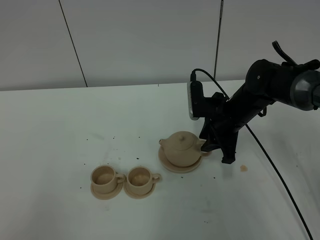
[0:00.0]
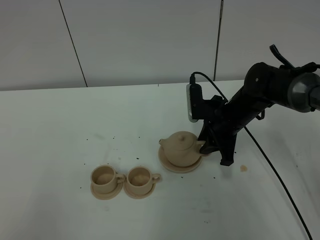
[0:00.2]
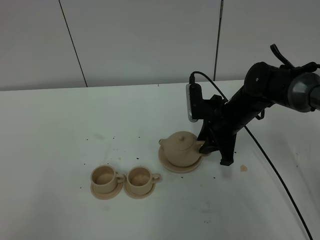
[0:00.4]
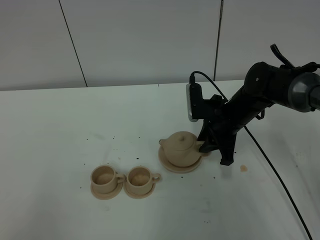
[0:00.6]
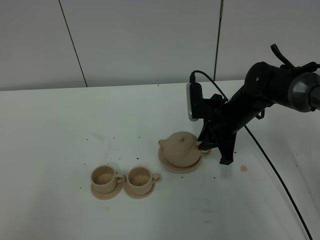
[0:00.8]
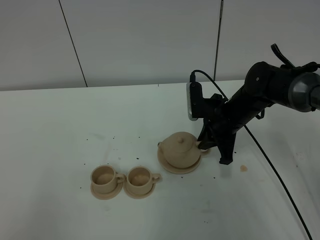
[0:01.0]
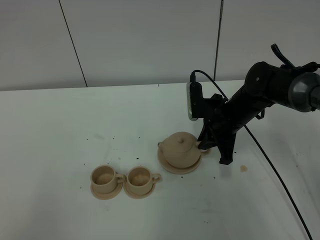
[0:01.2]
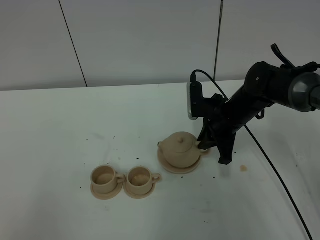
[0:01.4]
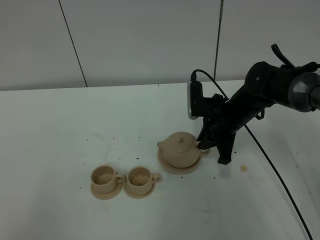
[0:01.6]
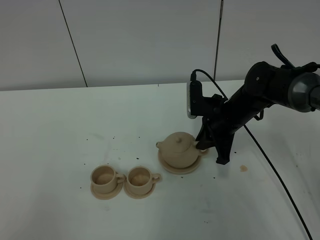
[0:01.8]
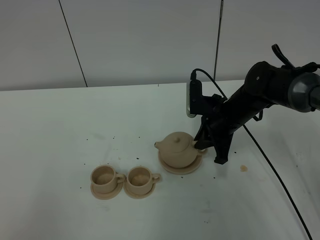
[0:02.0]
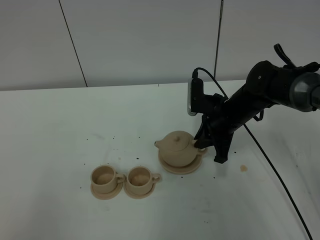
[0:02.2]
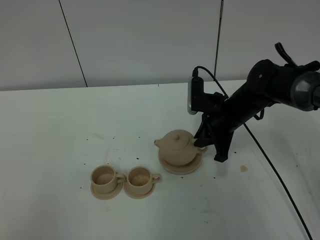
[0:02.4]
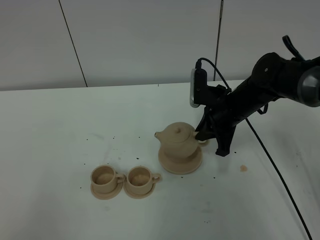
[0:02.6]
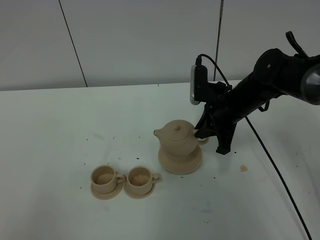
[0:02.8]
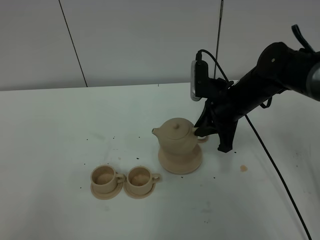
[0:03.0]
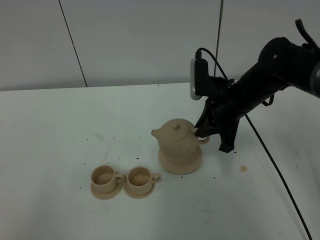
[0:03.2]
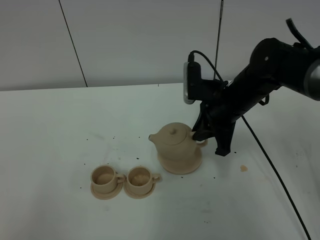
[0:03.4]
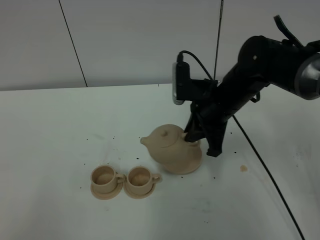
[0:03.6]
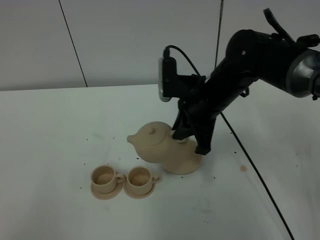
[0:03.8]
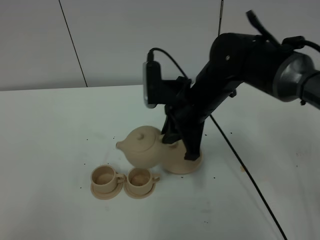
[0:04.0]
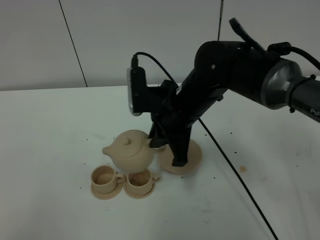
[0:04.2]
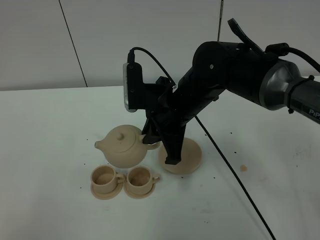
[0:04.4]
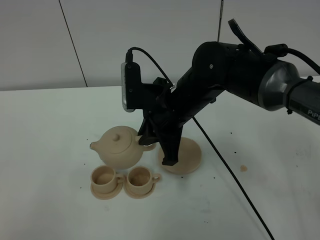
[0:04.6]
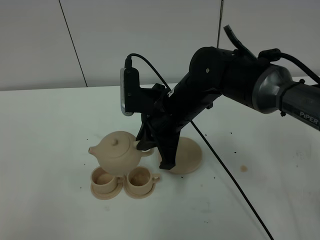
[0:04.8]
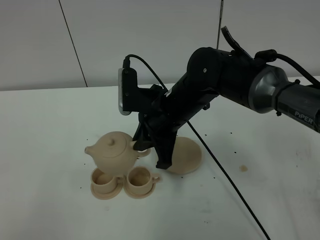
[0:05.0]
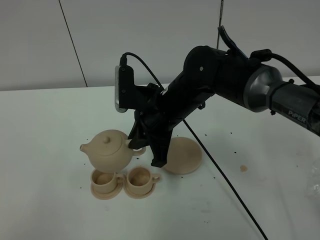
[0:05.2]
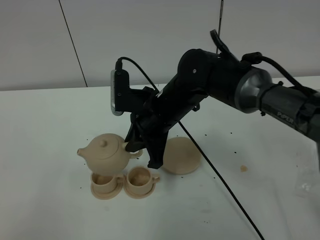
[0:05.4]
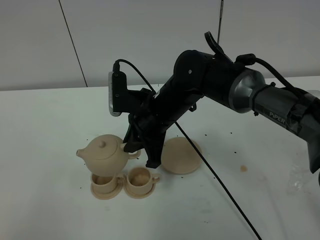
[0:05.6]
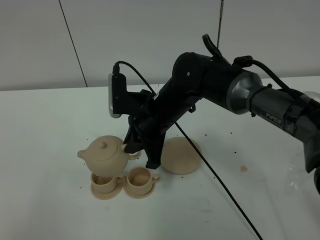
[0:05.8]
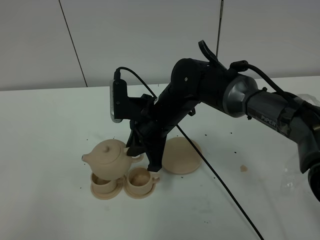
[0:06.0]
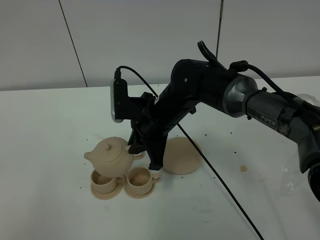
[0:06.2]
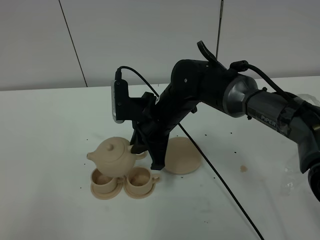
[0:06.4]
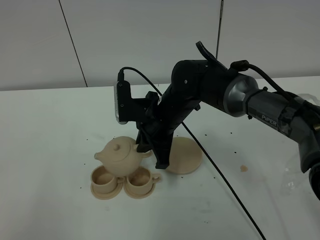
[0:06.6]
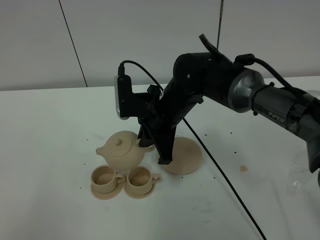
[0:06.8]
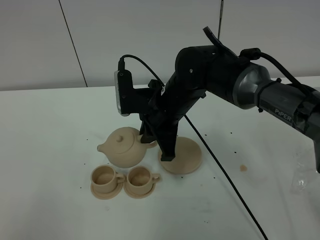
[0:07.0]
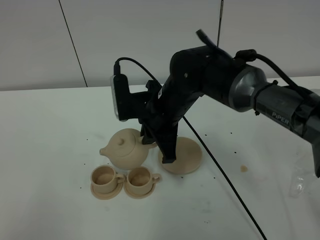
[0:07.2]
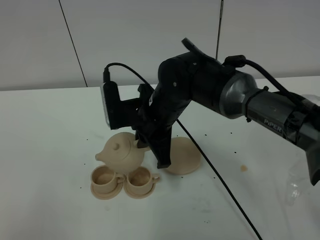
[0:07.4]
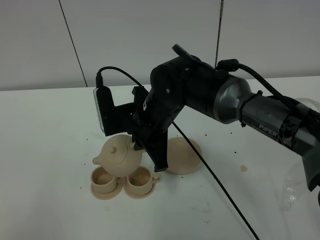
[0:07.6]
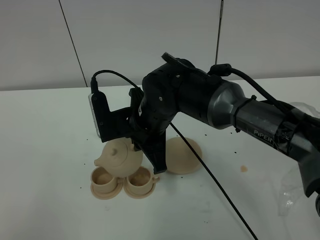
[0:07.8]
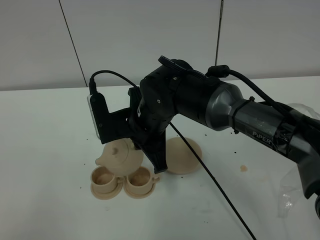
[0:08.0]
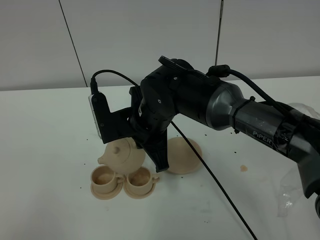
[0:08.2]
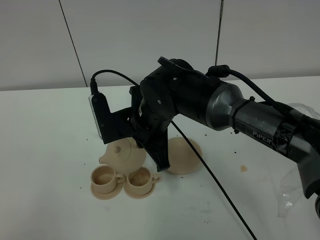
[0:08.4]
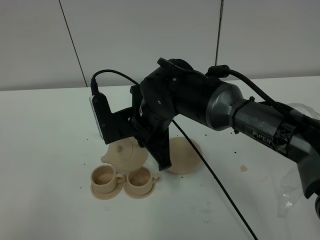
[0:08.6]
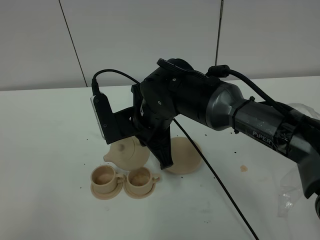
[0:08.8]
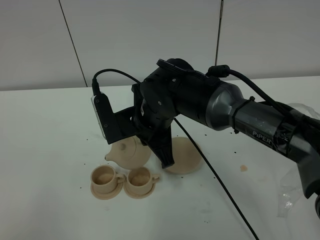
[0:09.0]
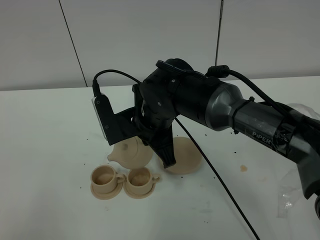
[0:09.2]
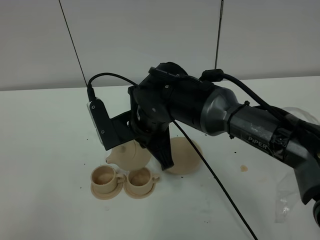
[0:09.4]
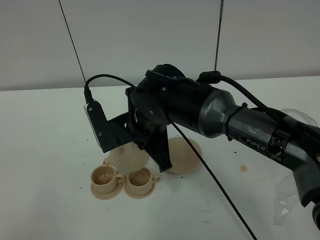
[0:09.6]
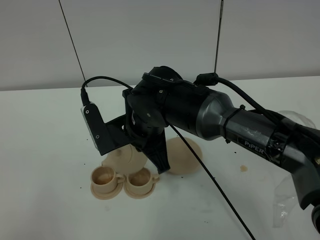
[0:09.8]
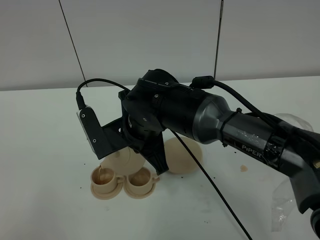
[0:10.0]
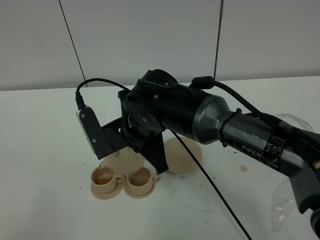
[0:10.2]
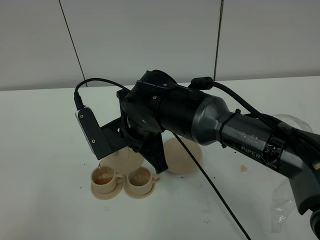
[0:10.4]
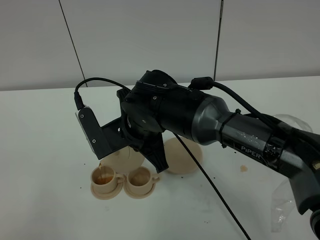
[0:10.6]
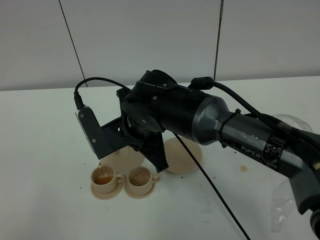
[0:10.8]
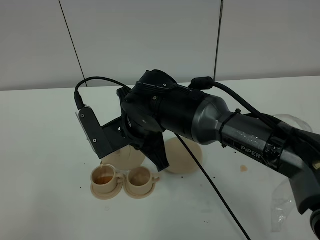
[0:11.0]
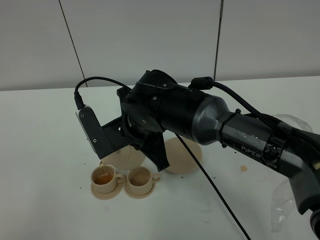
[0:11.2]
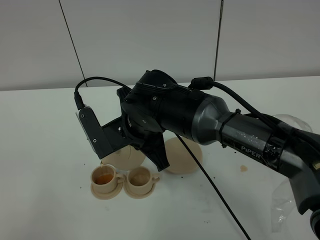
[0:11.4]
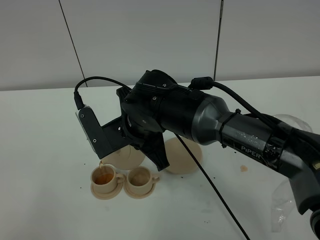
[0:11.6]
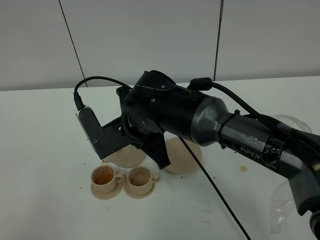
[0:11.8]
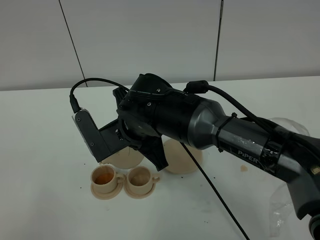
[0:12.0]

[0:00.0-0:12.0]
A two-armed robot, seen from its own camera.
Task of the whole recording: grasp the brown teapot and pour the tea into the two brown teacups one by one, put the brown teapot back in its original place.
Step, 0:00.0 to 0:02.4: Pick up the teapot with the right gripper.
0:00.0 to 0:01.6: The right gripper closes its fingers.
0:01.6 to 0:03.0: The right gripper moves upward, roughly 5 cm.
0:03.0 to 0:04.4: The right gripper travels to the left, backward and upward by some 15 cm.
0:04.4 to 0:06.0: The right gripper travels downward by roughly 5 cm.
0:07.6 to 0:10.4: The grippers stay close to where they were, moving slightly.
0:10.4 to 0:12.0: There are only small adjustments of the grippers.

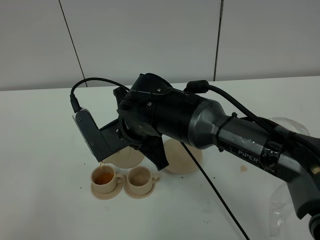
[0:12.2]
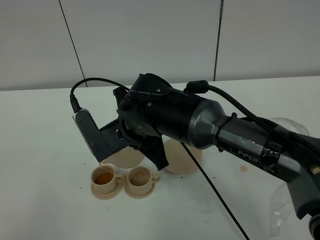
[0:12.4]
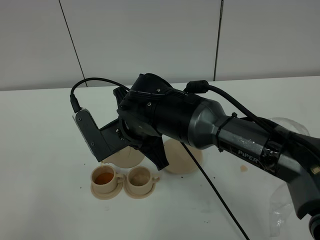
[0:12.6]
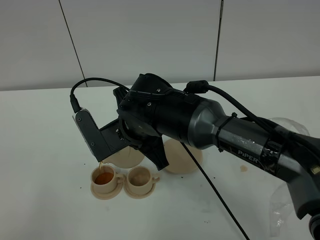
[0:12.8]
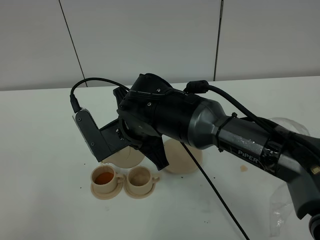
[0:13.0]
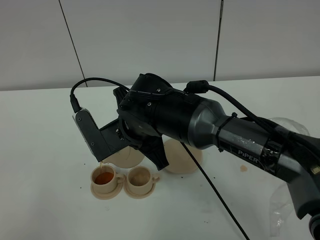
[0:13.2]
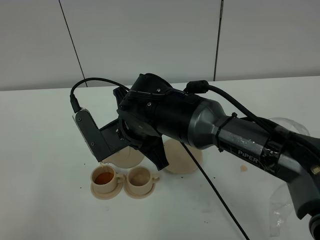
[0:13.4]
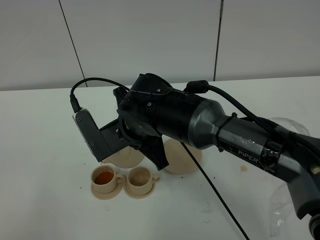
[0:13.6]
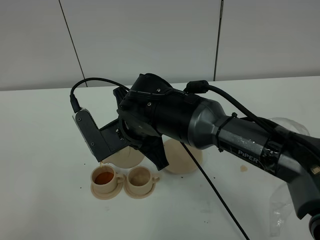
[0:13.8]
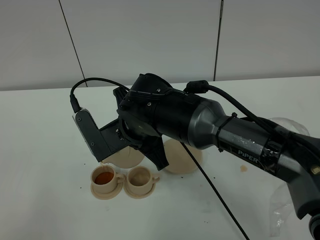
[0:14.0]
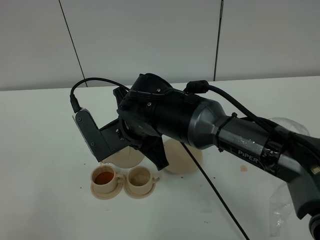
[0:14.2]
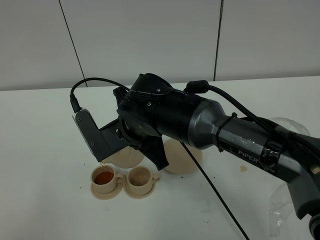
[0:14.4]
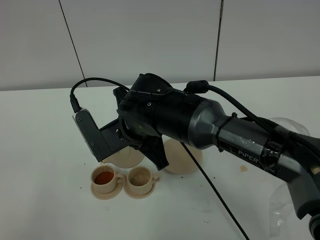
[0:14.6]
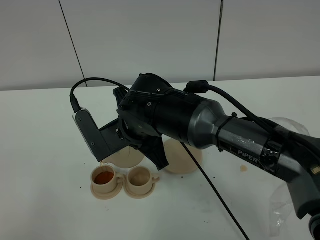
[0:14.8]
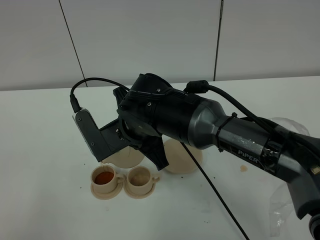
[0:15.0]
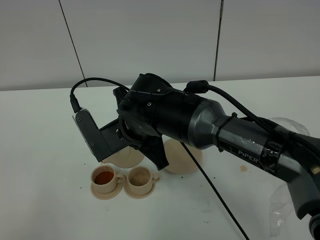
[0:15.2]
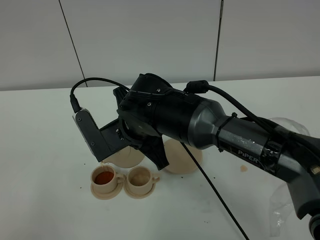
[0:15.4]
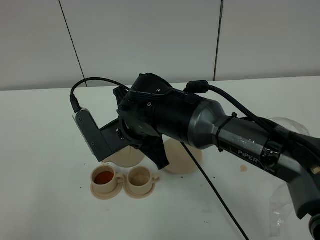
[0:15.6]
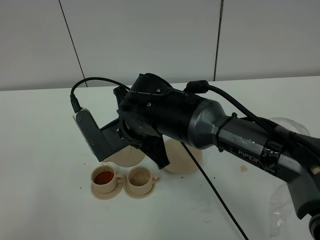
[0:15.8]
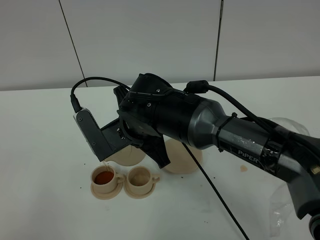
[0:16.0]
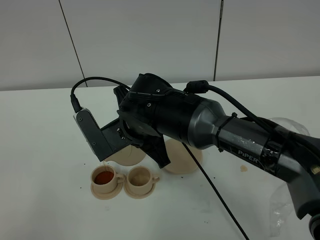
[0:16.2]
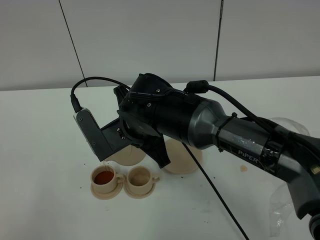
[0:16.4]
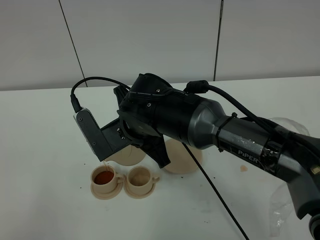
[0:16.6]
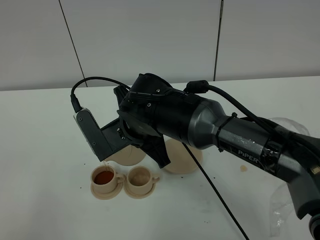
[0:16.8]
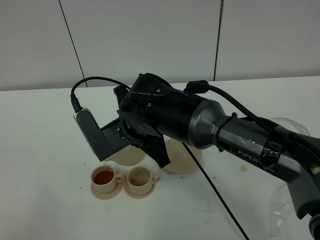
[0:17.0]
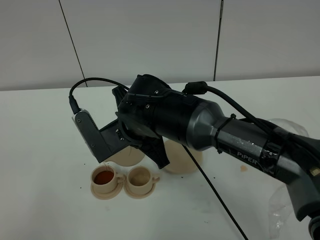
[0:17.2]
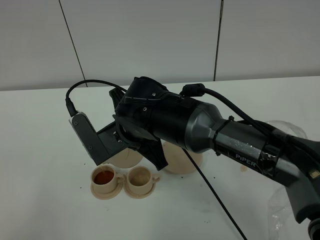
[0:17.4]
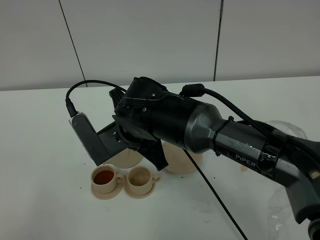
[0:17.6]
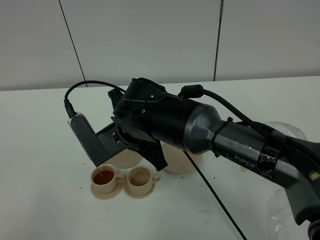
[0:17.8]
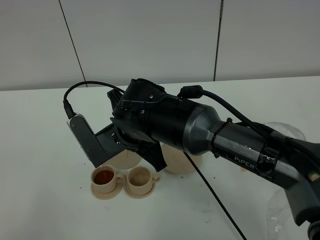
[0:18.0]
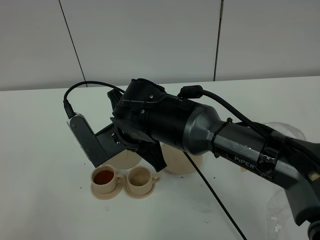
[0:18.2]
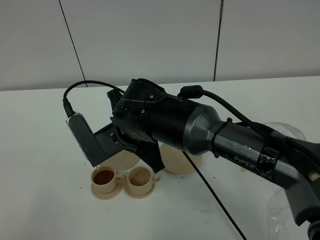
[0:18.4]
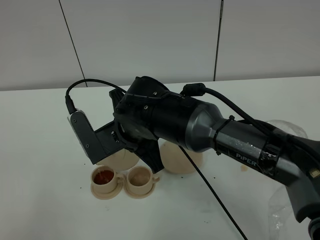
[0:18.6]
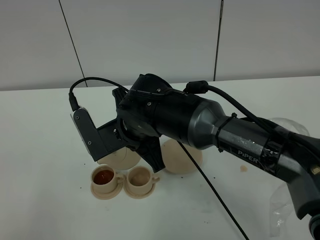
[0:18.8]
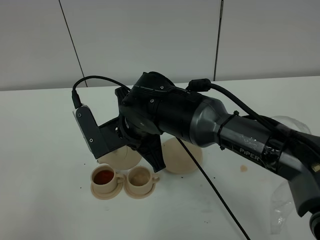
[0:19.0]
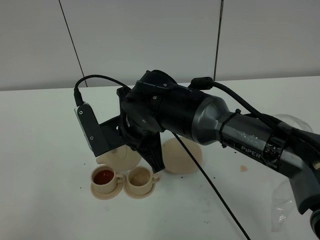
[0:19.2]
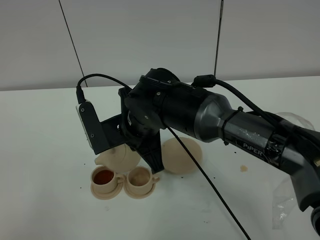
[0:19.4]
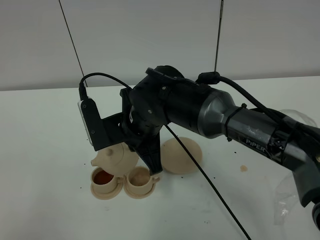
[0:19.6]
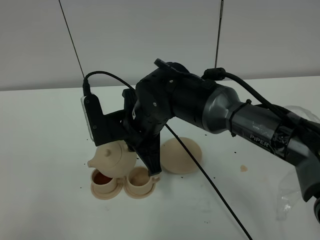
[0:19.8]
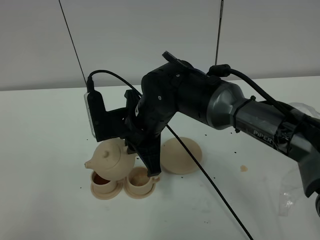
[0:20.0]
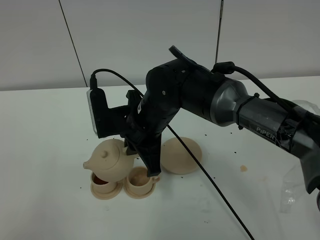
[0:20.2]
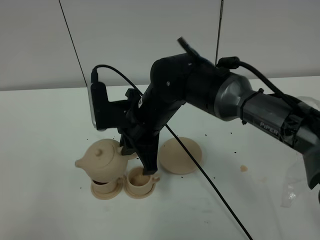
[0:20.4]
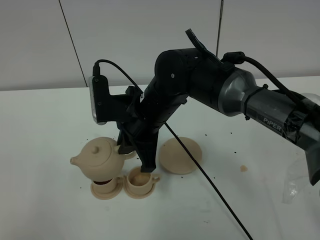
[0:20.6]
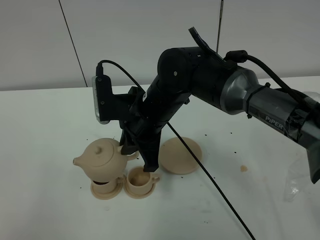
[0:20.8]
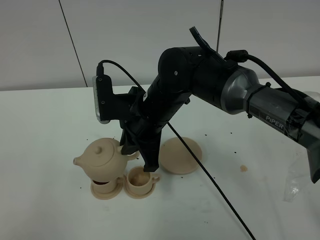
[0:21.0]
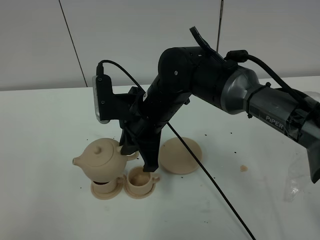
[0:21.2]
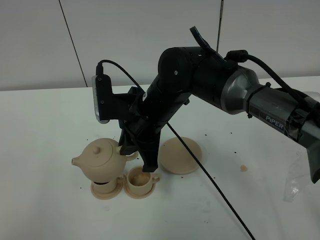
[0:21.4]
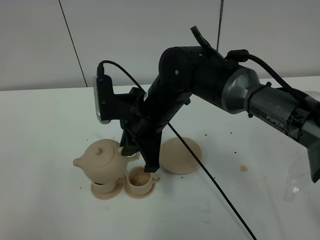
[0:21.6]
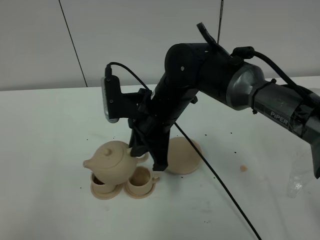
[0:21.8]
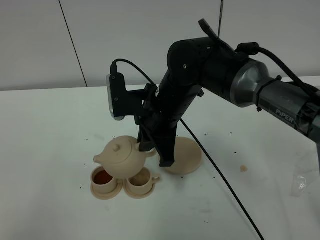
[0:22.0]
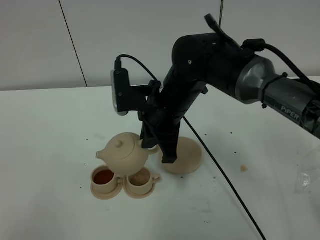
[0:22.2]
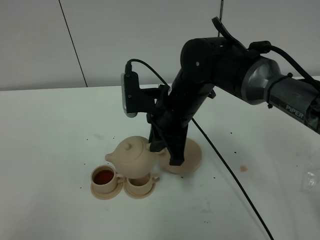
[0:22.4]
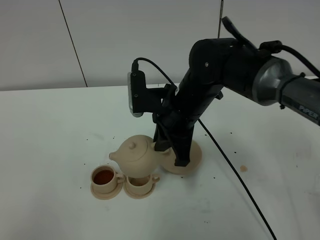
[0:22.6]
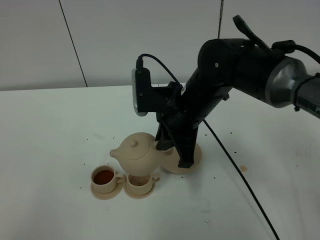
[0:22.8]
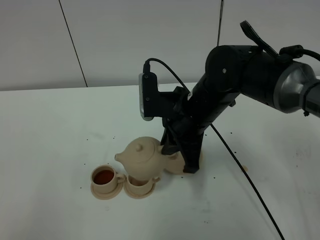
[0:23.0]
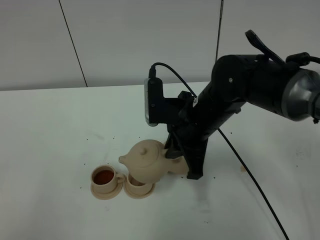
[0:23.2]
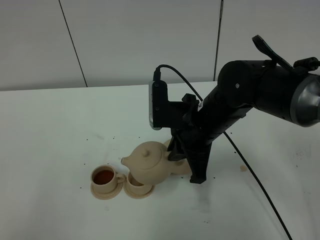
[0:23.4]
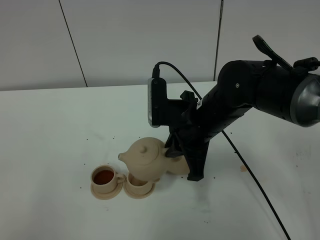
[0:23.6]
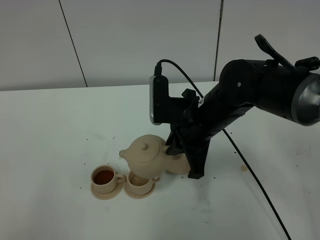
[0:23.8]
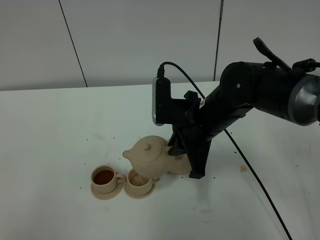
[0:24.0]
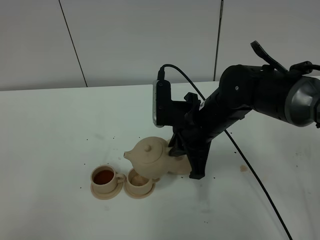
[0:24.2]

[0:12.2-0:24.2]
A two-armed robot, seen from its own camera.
Task of the whole recording: grasp the brown teapot and pour the tea into the two brown teacups one by one, put the brown teapot back in its original place.
Step, 0:12.2 to 0:18.6: Pour tea into the teacup with the right gripper.
0:12.2 to 0:18.2: Both grippers stay about where they are.
0:19.8 to 0:21.2: There are only small adjustments of the grippers.
0:21.2 to 0:22.6: The right gripper heads to the right, covering about 5 cm.
0:22.6 to 0:24.2: The grippers move only a little.
